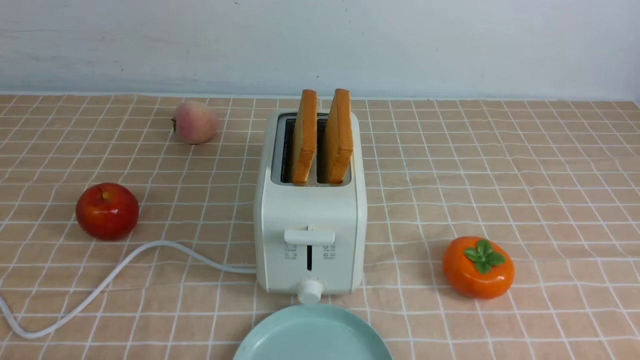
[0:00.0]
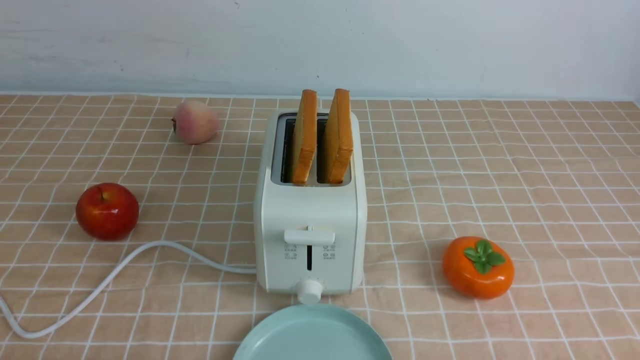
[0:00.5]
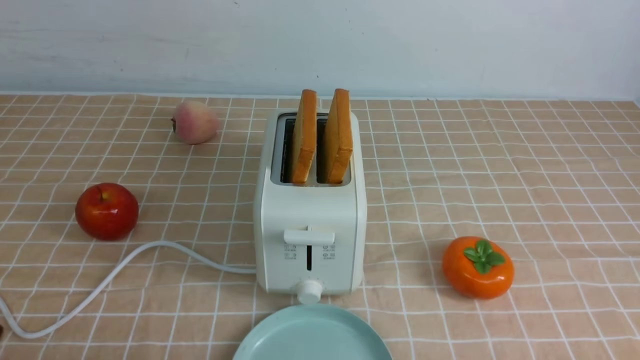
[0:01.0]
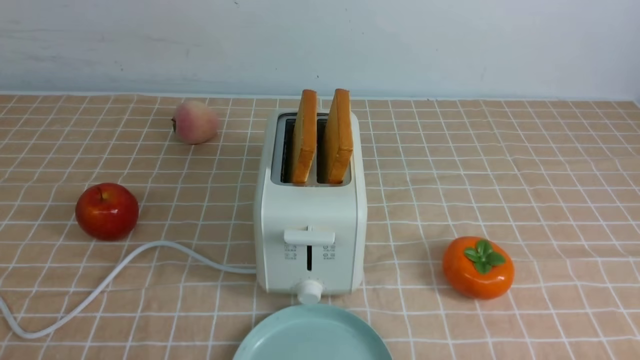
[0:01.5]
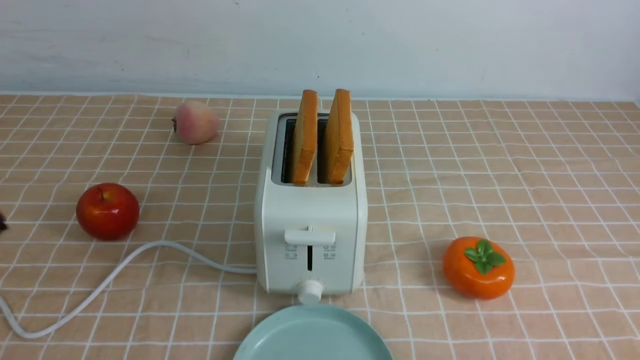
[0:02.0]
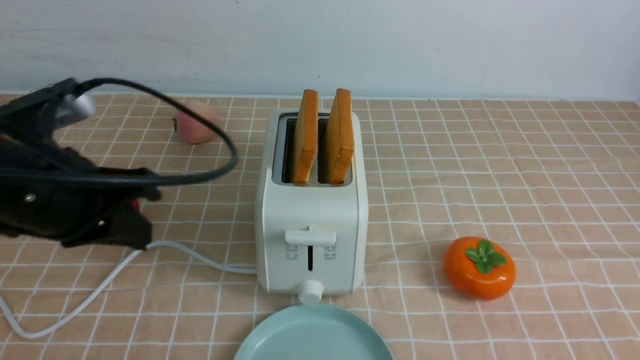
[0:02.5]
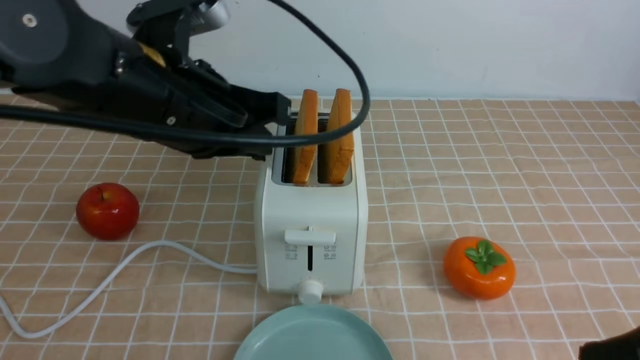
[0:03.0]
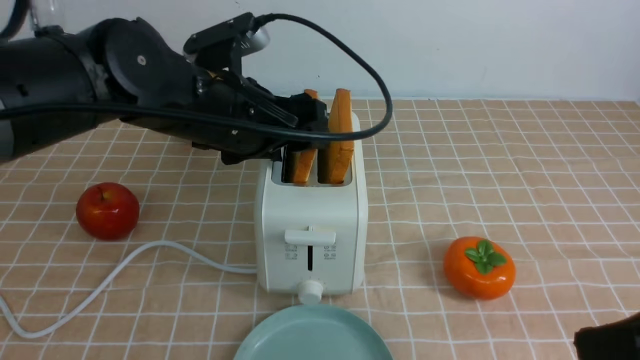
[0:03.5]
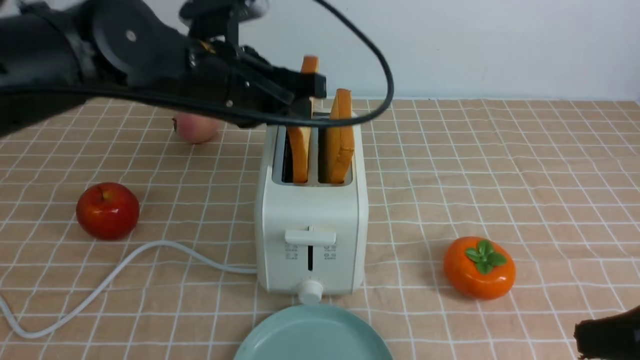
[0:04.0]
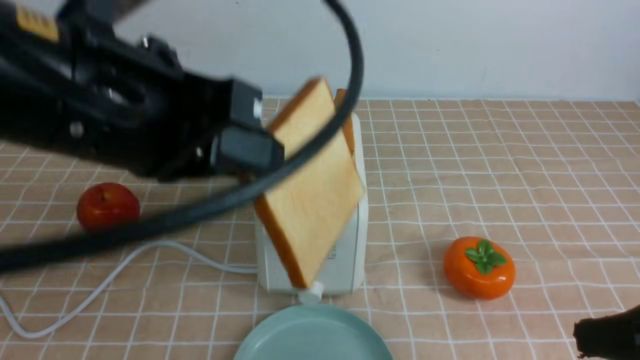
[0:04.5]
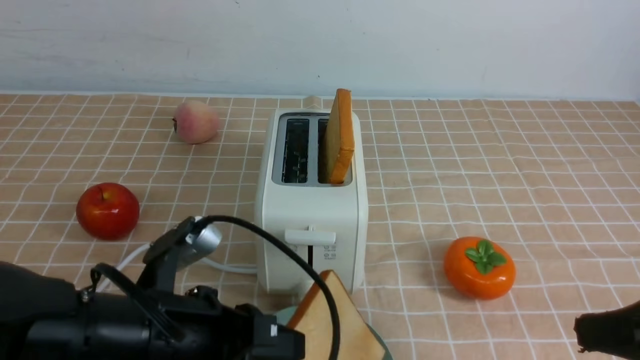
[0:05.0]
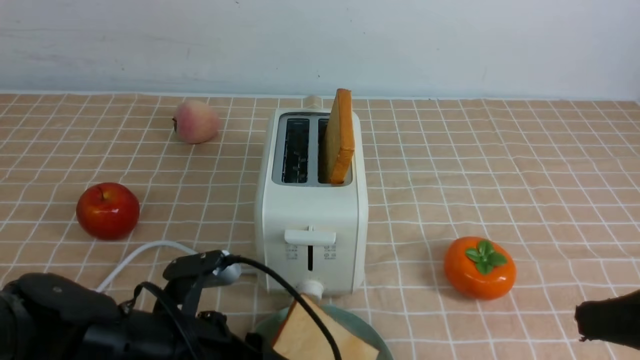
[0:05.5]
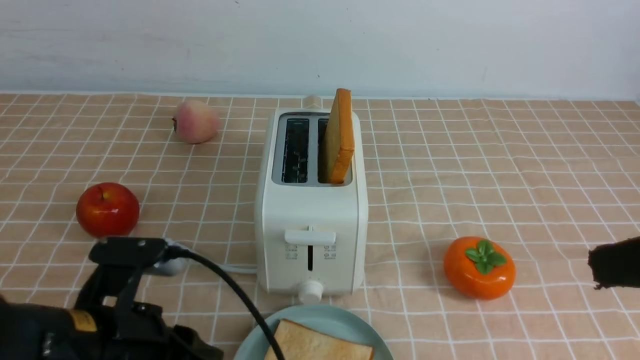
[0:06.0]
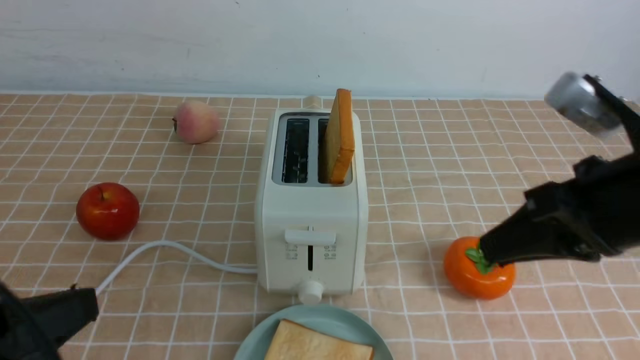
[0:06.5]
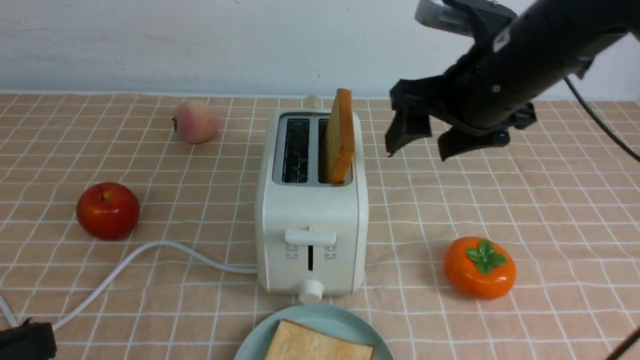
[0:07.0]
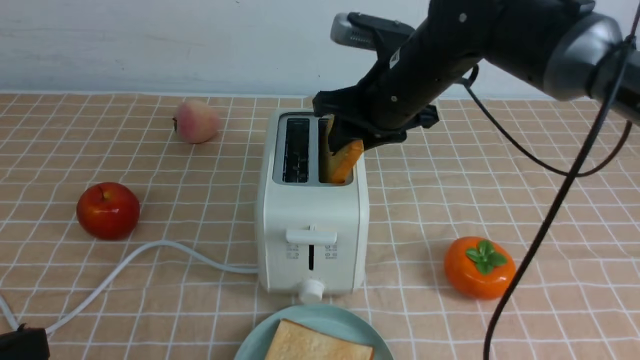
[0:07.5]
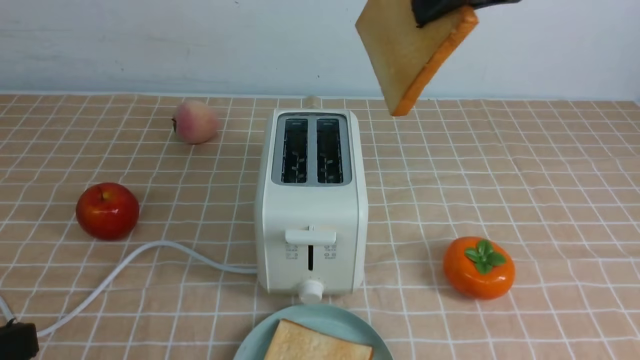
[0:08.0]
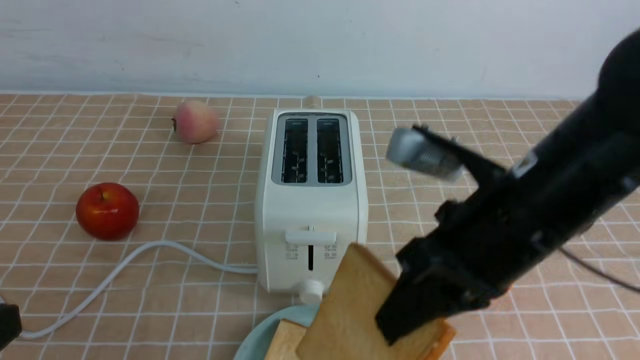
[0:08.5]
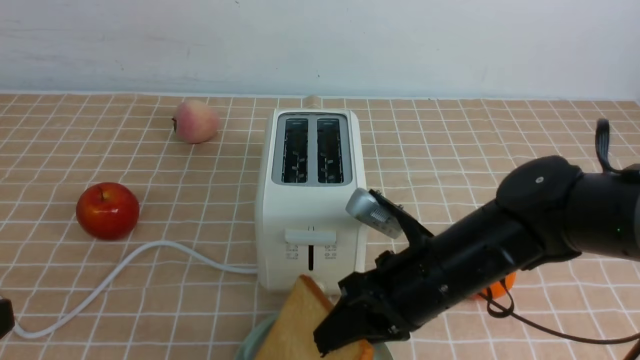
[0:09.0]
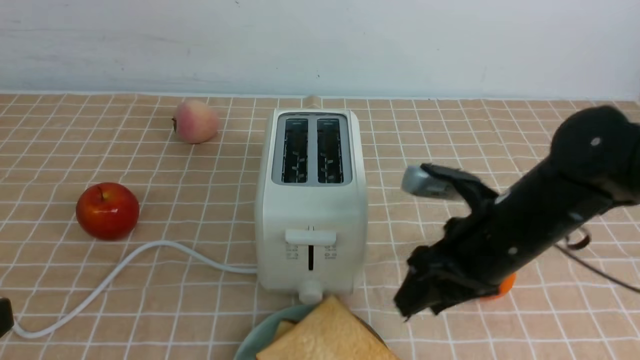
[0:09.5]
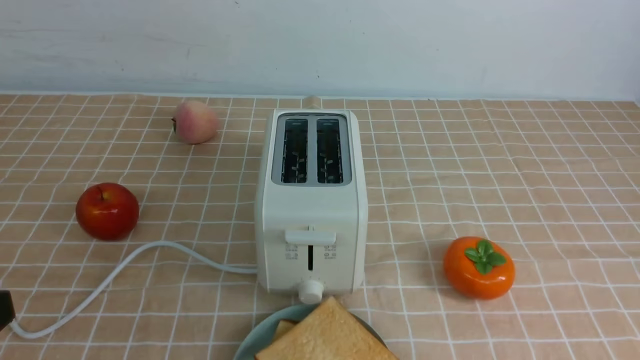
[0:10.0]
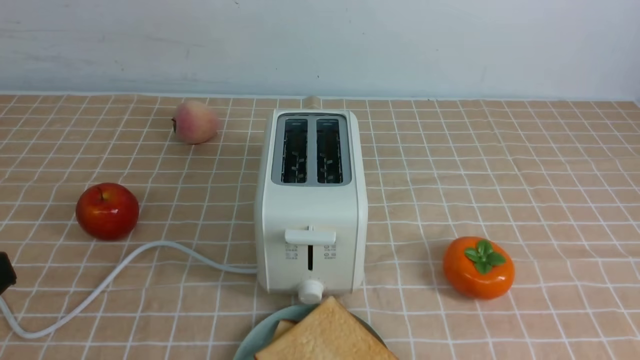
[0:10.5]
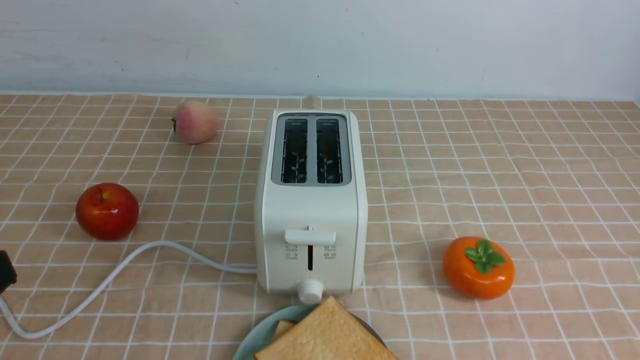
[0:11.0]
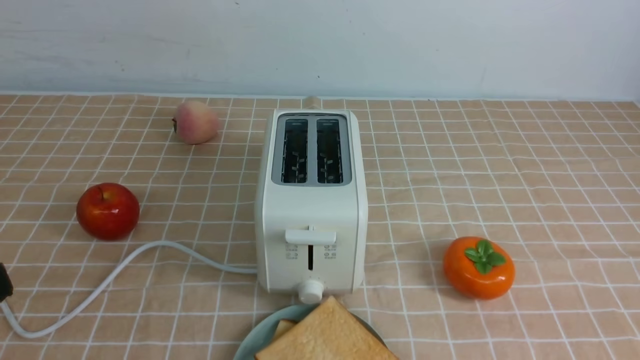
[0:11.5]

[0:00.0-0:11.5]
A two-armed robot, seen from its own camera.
Task of the whole recording: take toasted bread from bread machine on light coffee tablecloth place on plate.
Step, 0:00.0 to 0:04.0: use the left arm to take out a slice of bread.
Step, 0:04.5 to 0:05.5: use the left arm to put a slice of bread into the empty plate.
Step, 0:06.0 to 0:07.5: use the right arm to take out a slice of bread.
Step, 0:08.0 to 0:09.0: use the right arm to put a slice of bread into the plate.
0:02.0 to 0:04.0: The right gripper is displaced upward and forward by roughly 15 cm, and closes up. The left gripper shifts approximately 25 cm forward and to the right, and opens, then closes again.
0:04.0 to 0:06.0: The right gripper is displaced upward by some 5 cm; the left gripper moves backward, downward and to the left, some 20 cm, and opens, then closes once more.
0:06.0 to 0:07.5: The right gripper travels forward and to the left by roughly 30 cm, and opens, while the left gripper goes about 15 cm backward, upward and to the left, and closes up.
0:07.5 to 0:09.5: The right gripper swings up and down, approximately 25 cm each way, with 2 reversals.
0:09.5 to 0:11.5: The right gripper moves backward and to the right, approximately 30 cm, and closes.

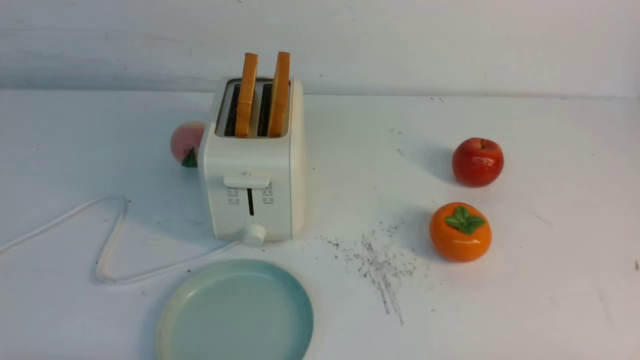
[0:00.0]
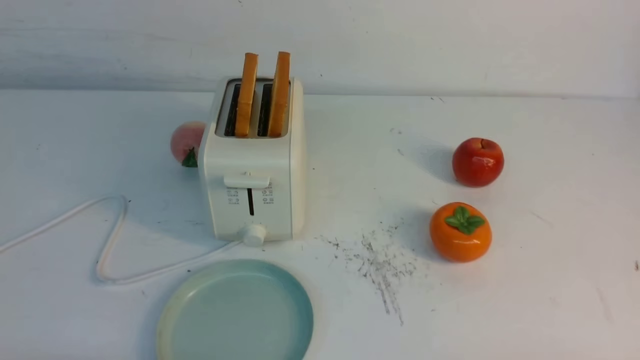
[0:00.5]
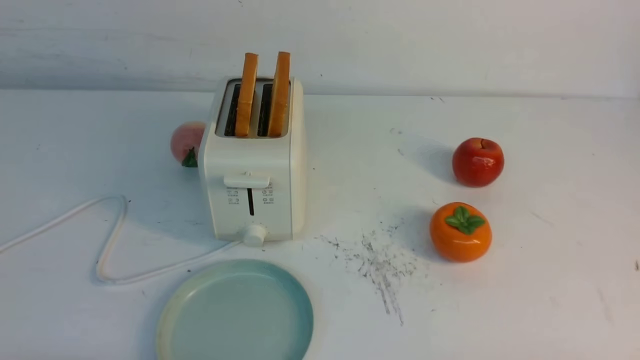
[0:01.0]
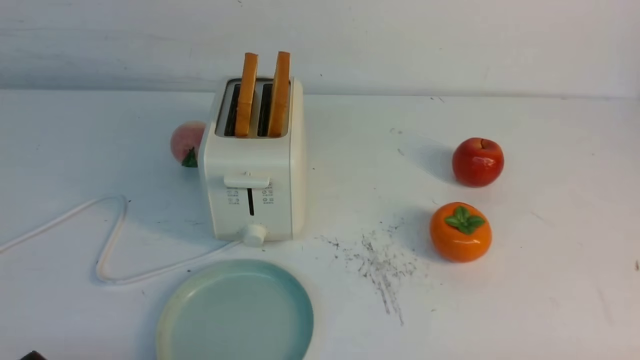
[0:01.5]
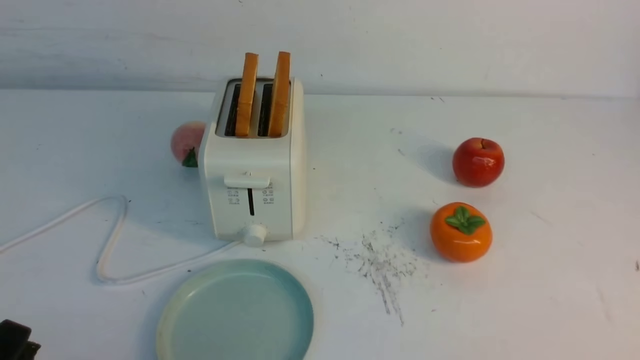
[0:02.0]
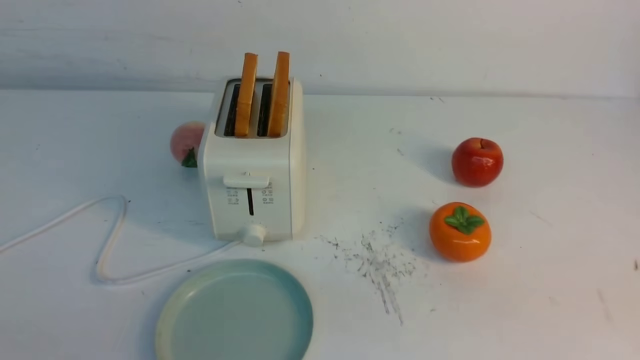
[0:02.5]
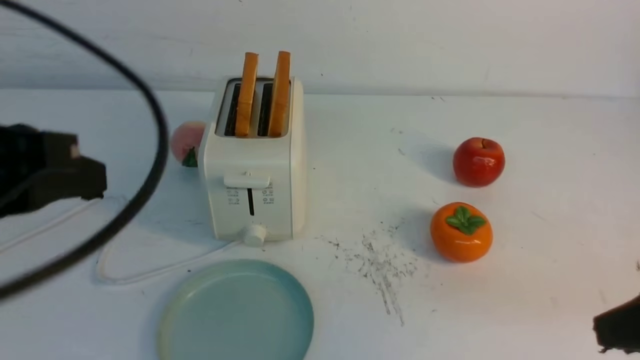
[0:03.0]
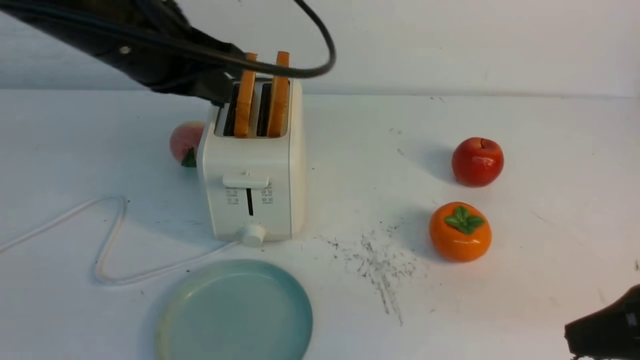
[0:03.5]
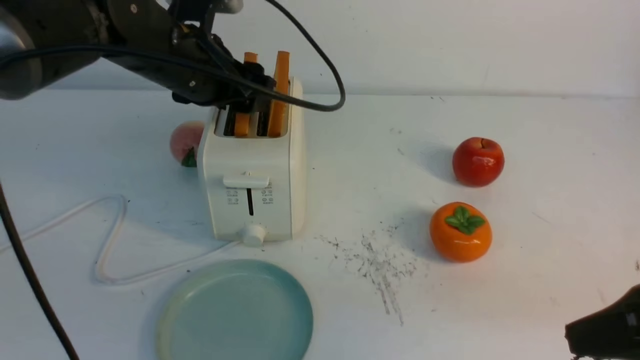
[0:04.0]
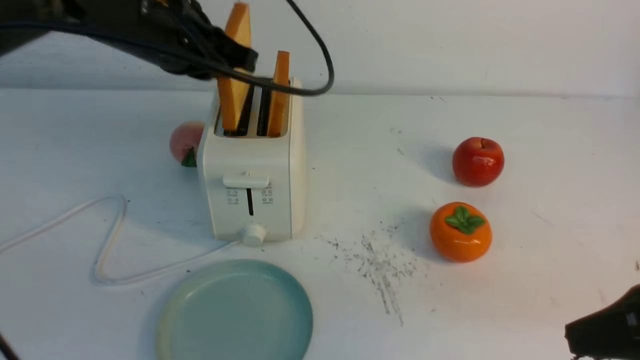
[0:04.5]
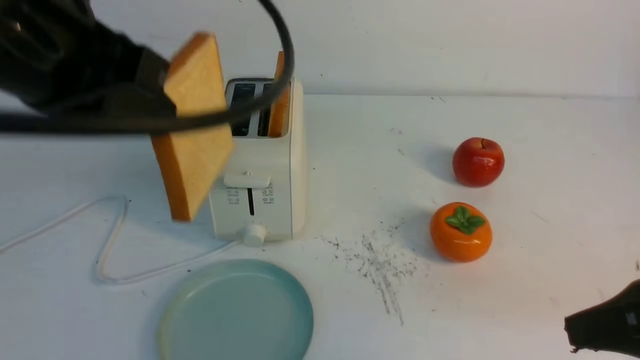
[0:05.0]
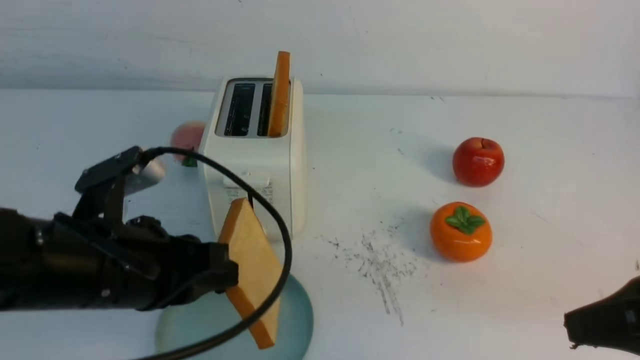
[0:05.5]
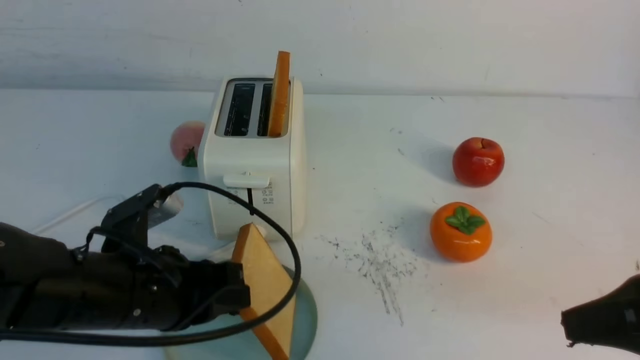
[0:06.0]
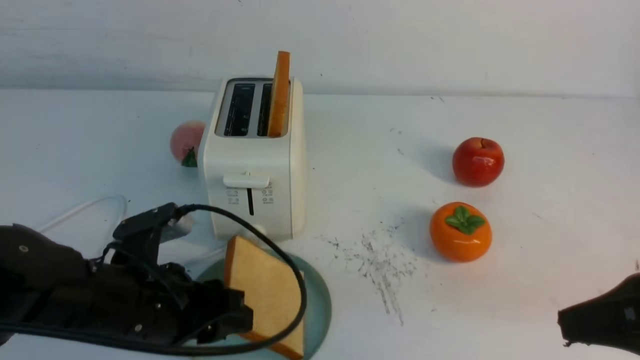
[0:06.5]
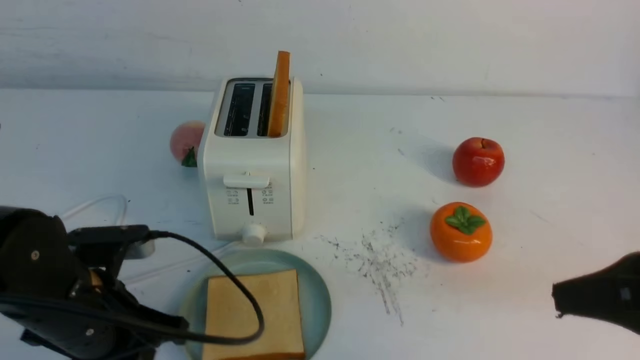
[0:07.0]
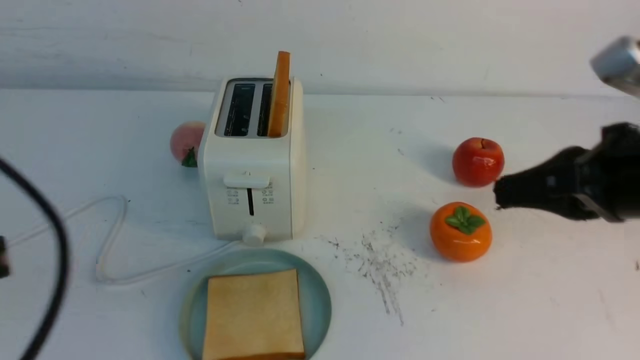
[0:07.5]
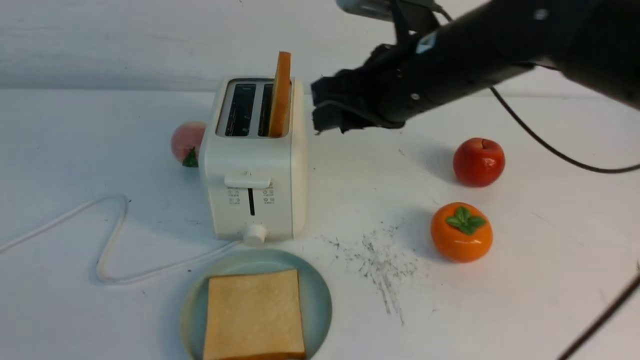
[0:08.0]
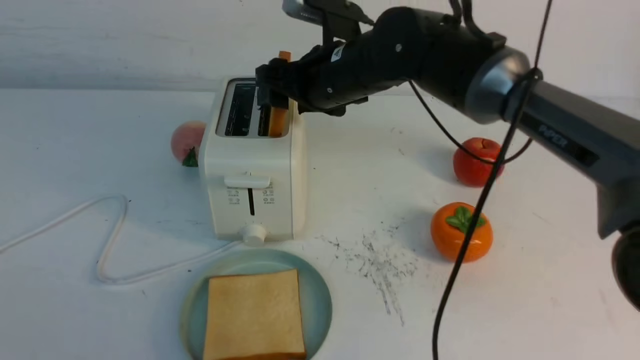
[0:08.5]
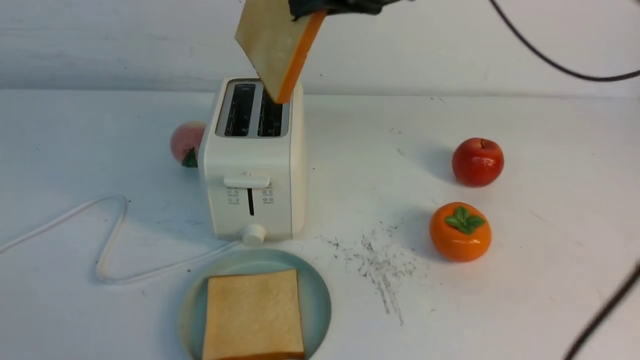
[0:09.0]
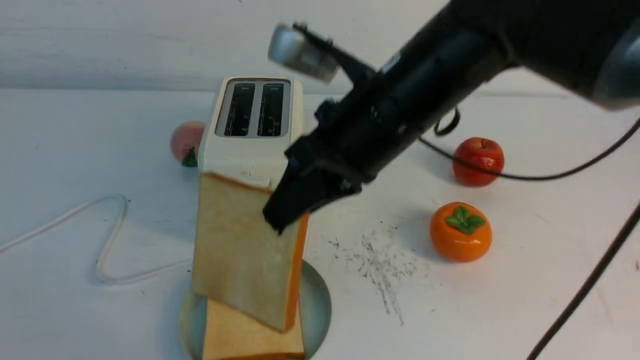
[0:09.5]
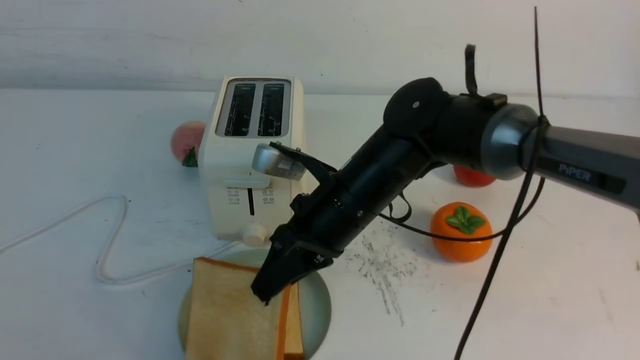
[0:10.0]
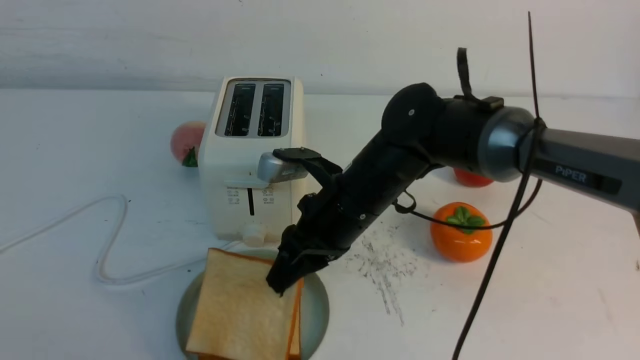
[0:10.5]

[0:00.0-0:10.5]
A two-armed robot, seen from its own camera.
Task of the whole recording: take toasted bread from bread machine on white table place on plate.
Step, 0:00.0 to 0:04.0: use the left arm to take out a slice of bread.
Step, 0:05.0 to 0:06.5: use the left arm to put a slice of bread into the empty plate.
Step, 0:07.0 to 0:08.5: use the right arm to take out a slice of bread.
0:02.0 to 0:04.0: The left gripper is displaced forward by some 35 cm, and closes and opens again. The right gripper travels upward, forward and to the left by approximately 15 cm.
0:04.0 to 0:06.5: The left gripper moves backward and downward, roughly 20 cm, and closes, then opens again.
0:06.5 to 0:08.5: The left gripper is displaced backward, upward and to the left by roughly 25 cm, and closes up. The right gripper heads forward and to the left, covering some 35 cm, and closes, then reopens.
0:08.5 to 0:10.5: The right gripper goes some 15 cm downward and backward.
